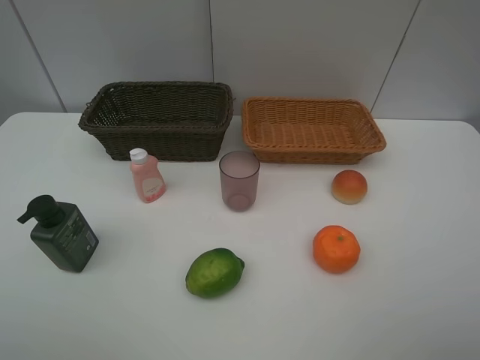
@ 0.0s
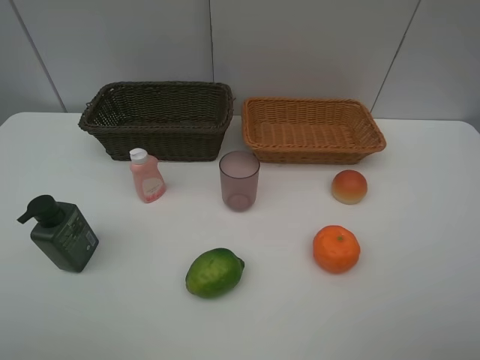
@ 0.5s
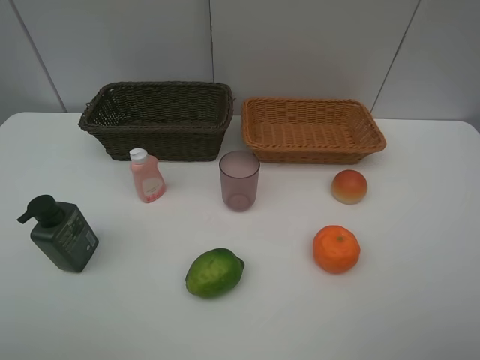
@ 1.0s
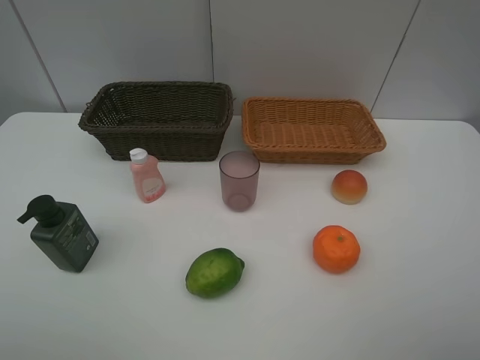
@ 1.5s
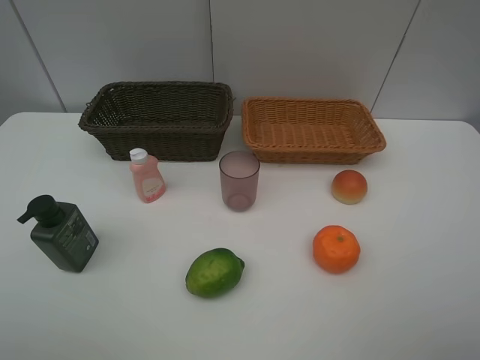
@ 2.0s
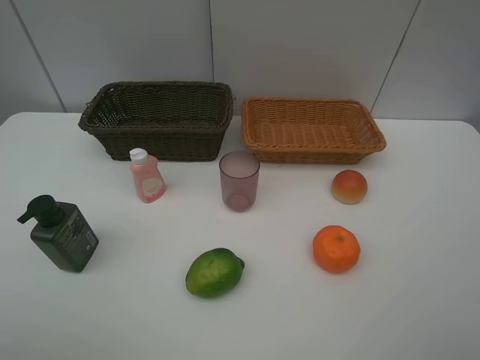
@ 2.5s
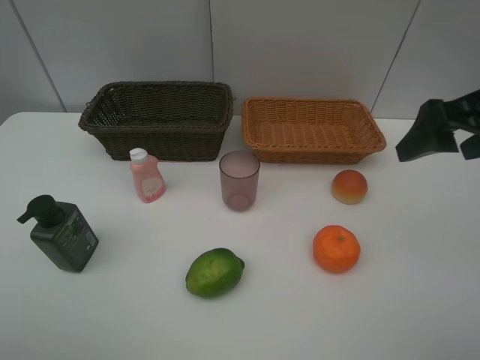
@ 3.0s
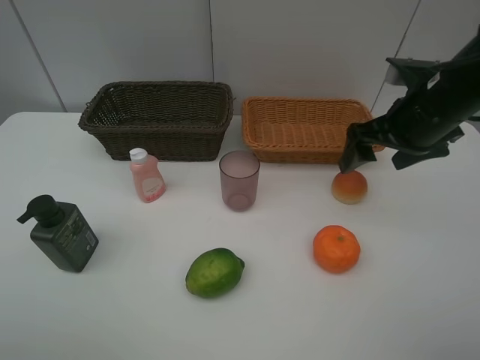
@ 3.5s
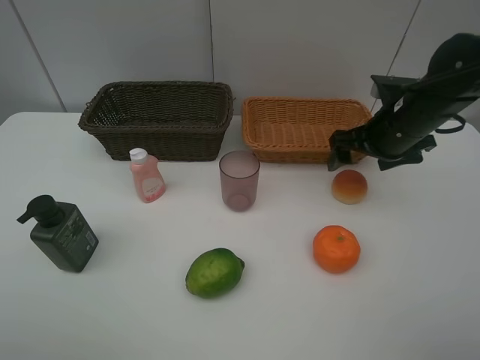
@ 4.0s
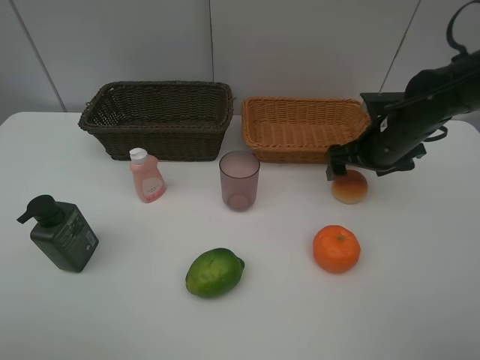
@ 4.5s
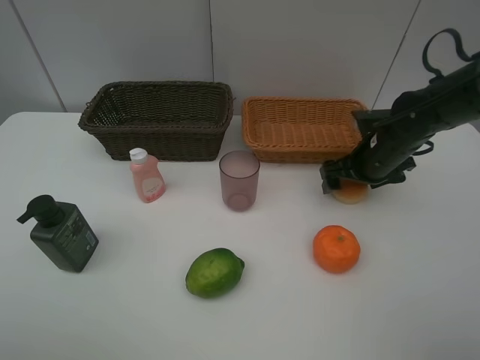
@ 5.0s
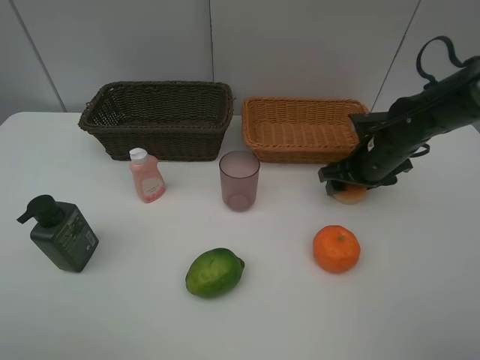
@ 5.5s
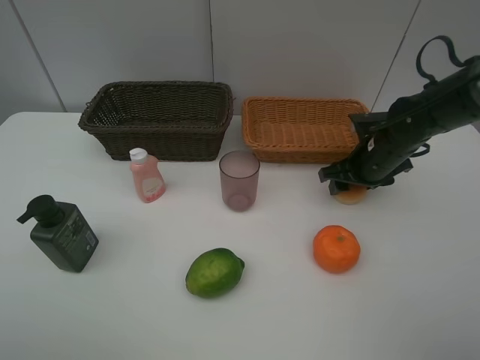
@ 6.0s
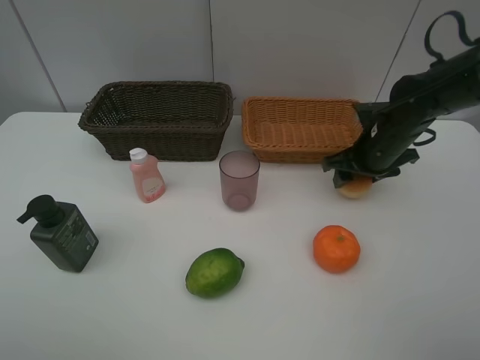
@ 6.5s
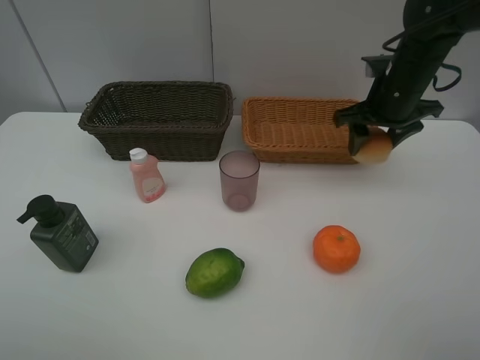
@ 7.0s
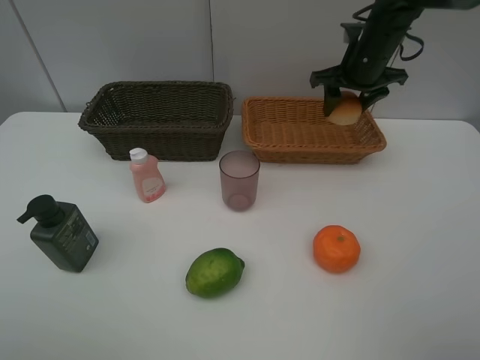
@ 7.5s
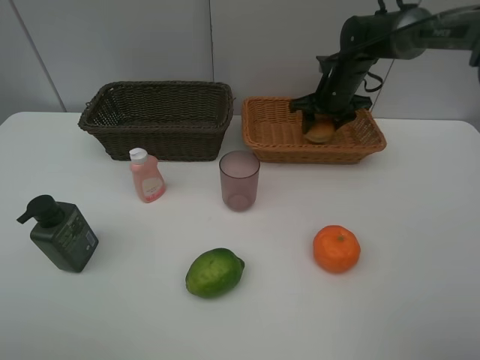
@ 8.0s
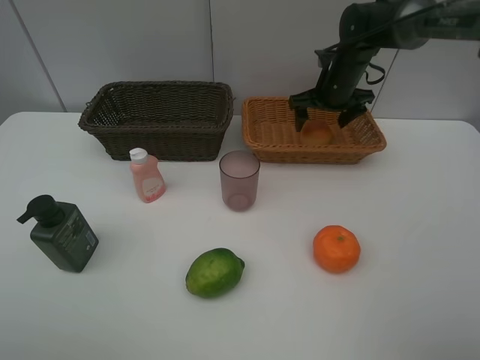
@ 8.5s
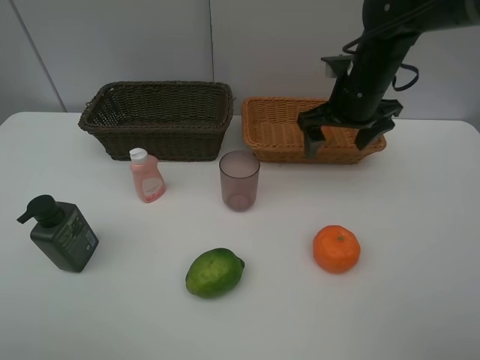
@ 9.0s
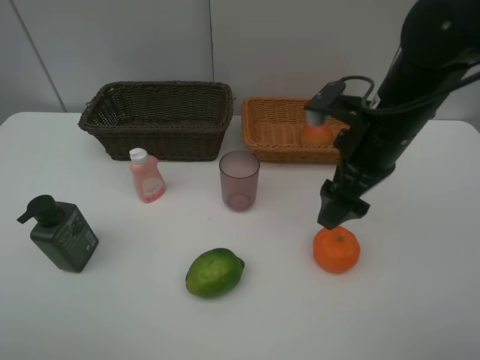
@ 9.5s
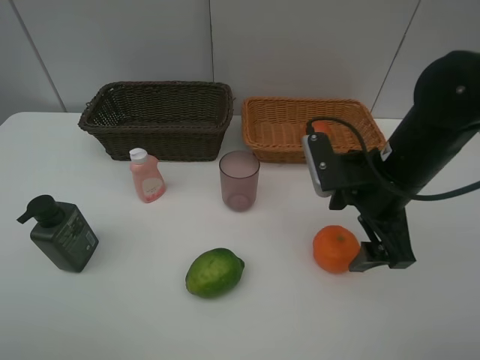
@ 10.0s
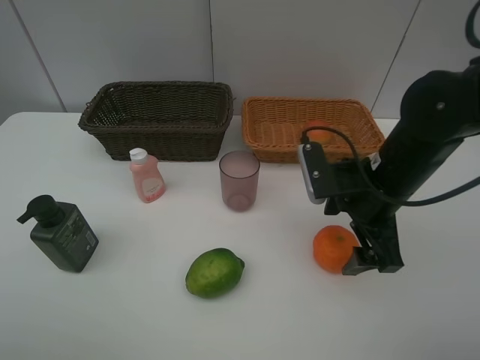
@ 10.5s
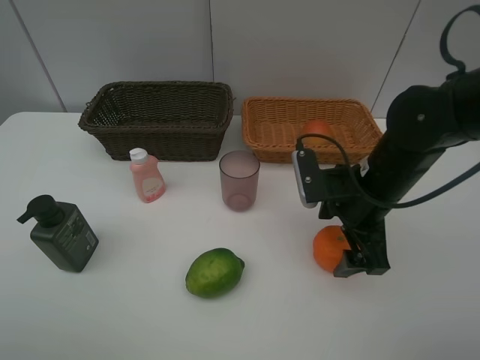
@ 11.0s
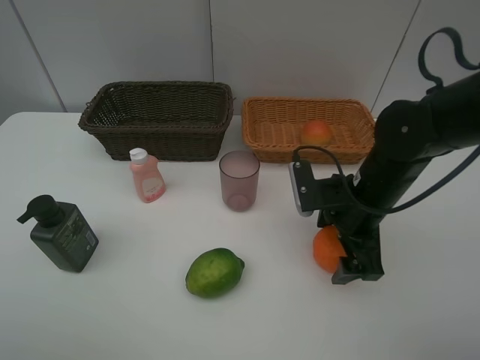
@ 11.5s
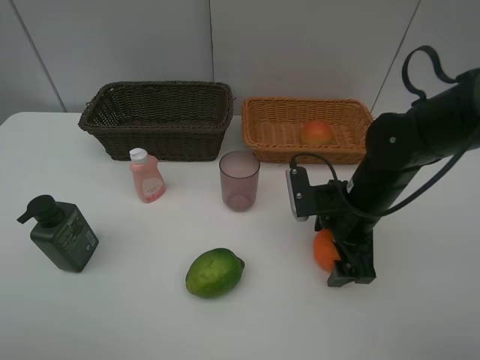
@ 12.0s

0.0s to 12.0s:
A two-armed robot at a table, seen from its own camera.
Task of the whole recording: place multiple objects separately in different baskets.
0.0s to 2.0s: The two grippers keep their place.
2.0s to 4.0s: The right gripper is displaced forward by approximately 35 cm.
4.0s to 6.0s: The right gripper is displaced downward by roughly 5 cm, and closes.
6.0s to 8.0s: The right gripper moves forward, about 15 cm.
8.0s to 10.0s: The right gripper is displaced backward by approximately 25 cm, and opens up.
10.0s to 12.0s: The right gripper travels downward by some 5 cm.

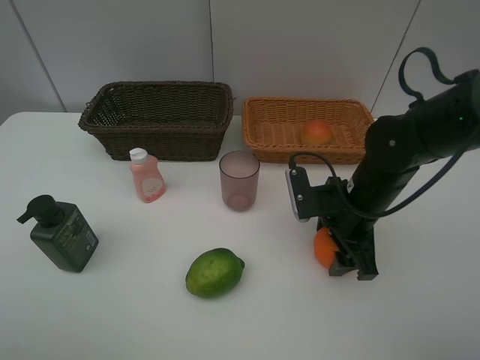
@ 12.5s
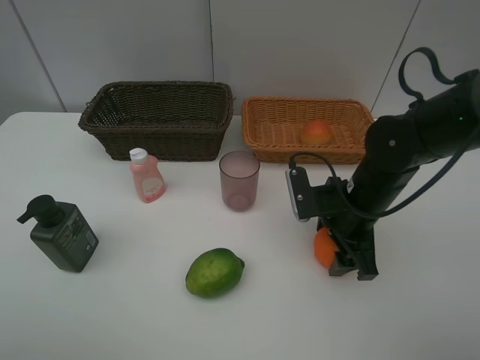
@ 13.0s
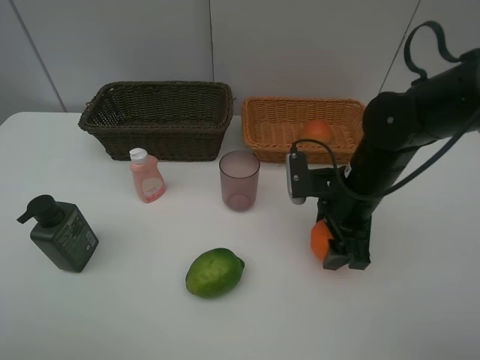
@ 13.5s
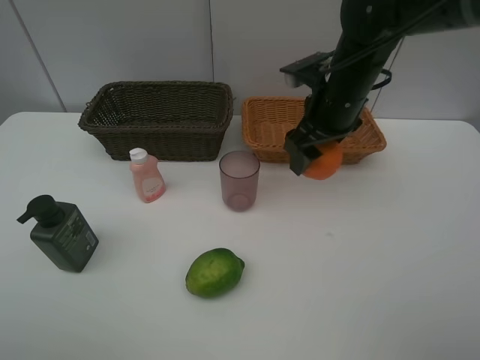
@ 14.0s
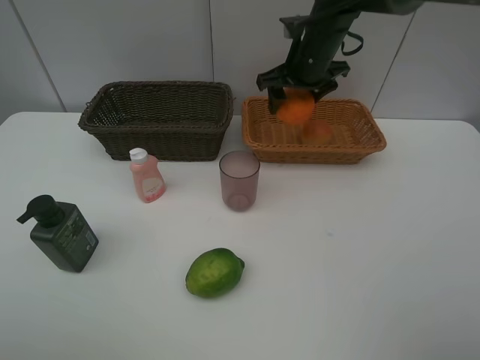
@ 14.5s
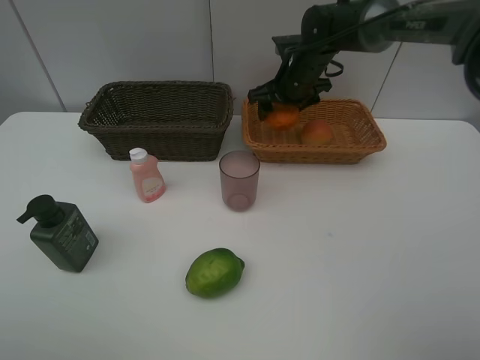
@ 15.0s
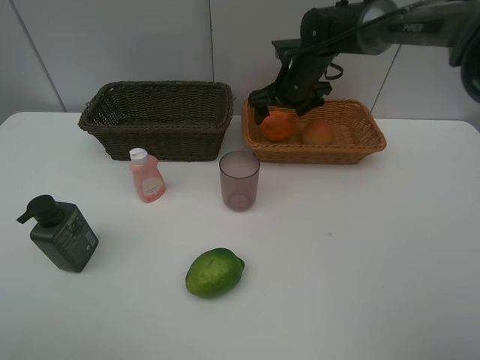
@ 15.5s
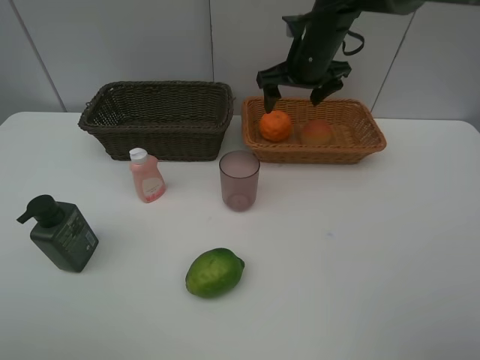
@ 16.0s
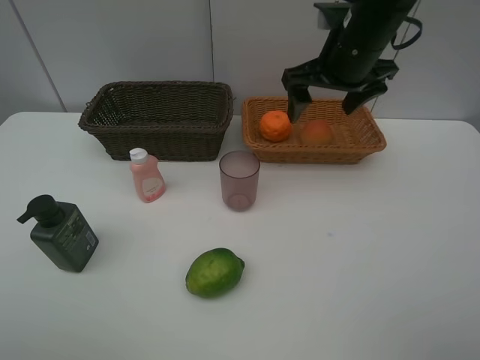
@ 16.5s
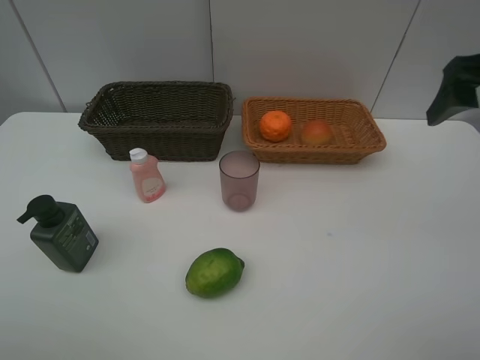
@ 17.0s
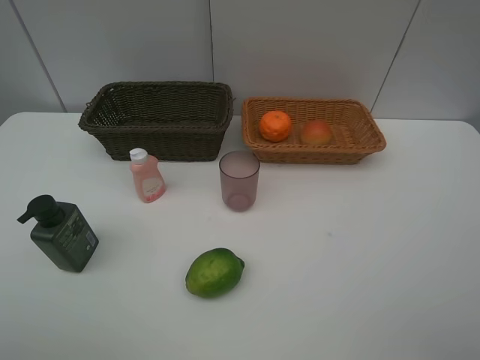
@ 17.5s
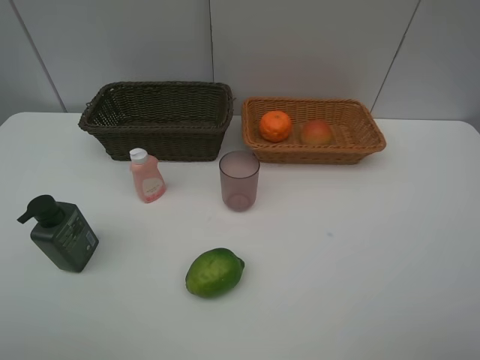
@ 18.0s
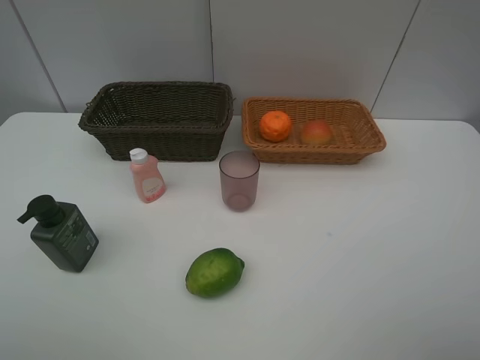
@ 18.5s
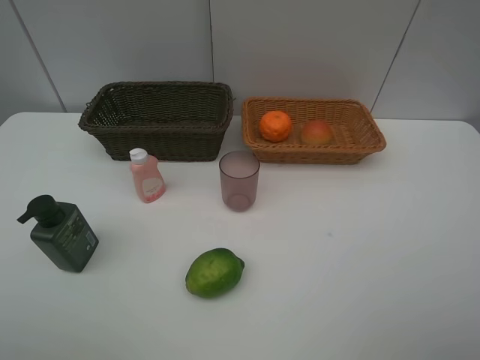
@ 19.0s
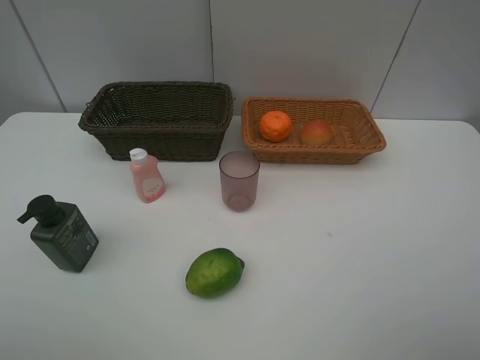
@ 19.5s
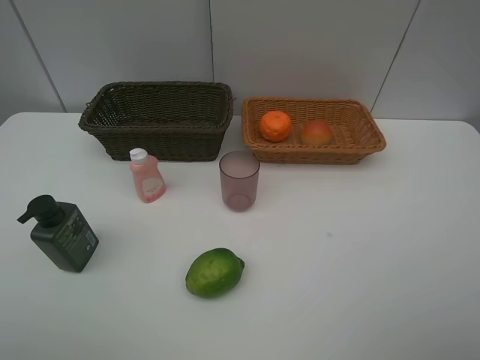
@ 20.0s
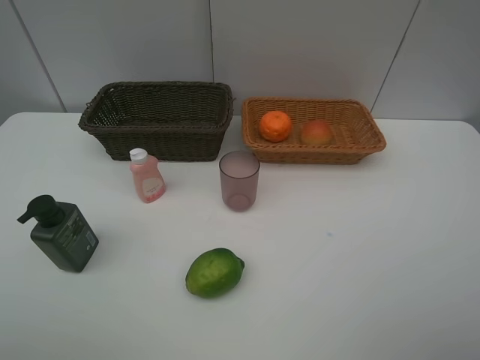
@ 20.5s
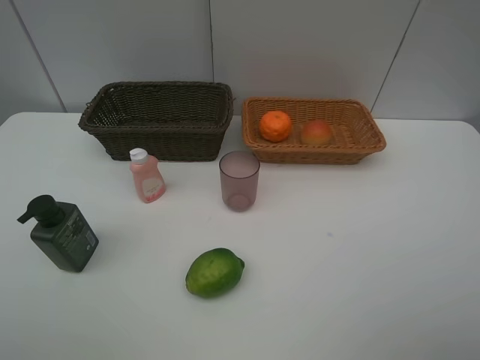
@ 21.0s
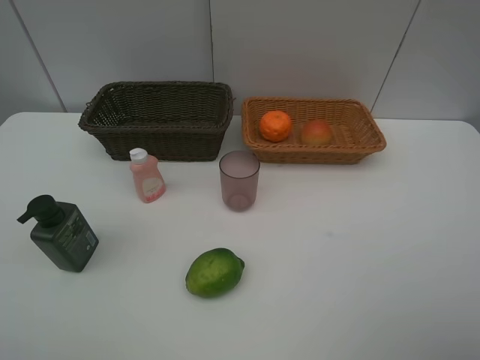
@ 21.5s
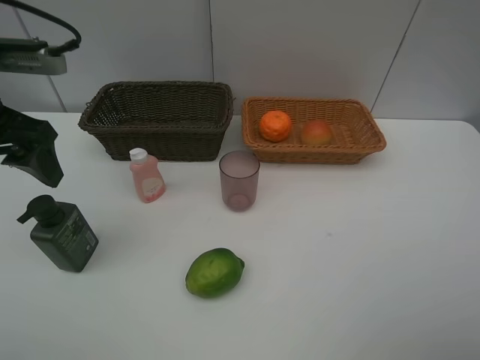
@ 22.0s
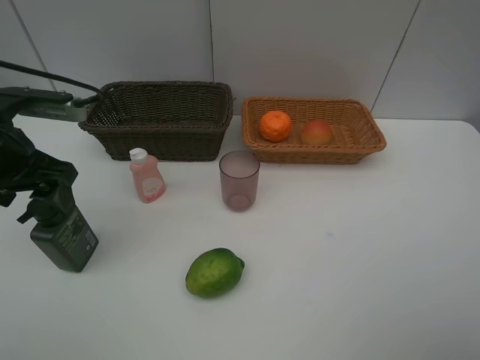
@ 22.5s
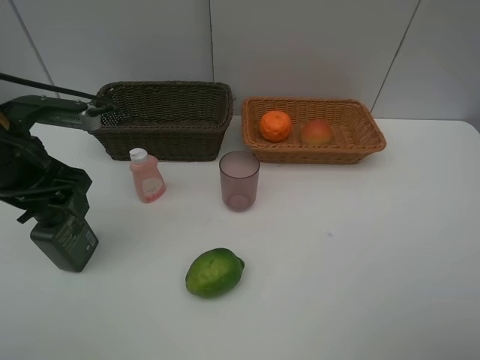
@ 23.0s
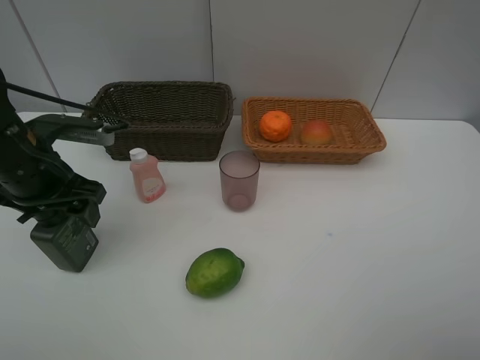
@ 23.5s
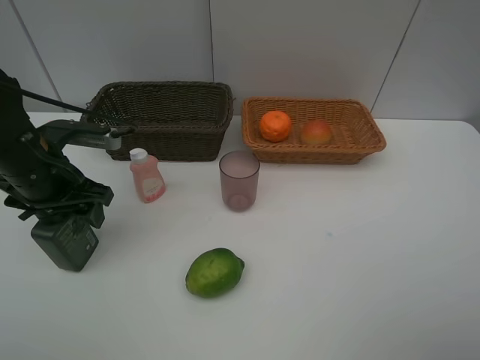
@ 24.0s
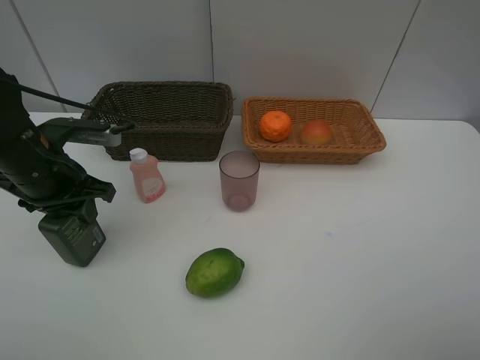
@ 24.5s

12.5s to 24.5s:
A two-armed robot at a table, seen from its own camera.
Task of the whole recording: place multiple objects separately in different baskets.
12.5s to 14.5s: The right gripper is displaced forward and upward by about 25 cm.
14.5s to 16.5s: The right gripper moves backward and upward, about 10 cm, and opens up.
16.5s to 18.5s: The right gripper travels backward by roughly 35 cm.
20.5s to 22.5s: The left gripper moves forward, about 25 cm.
22.5s to 24.5s: The left gripper moves downward, approximately 5 cm, and closes.

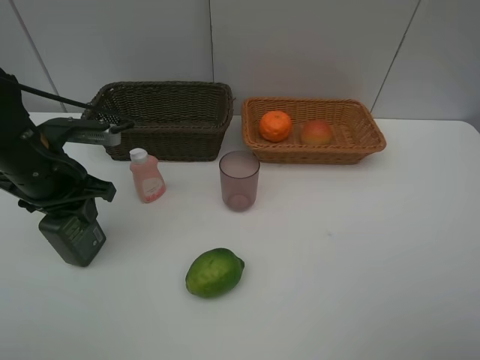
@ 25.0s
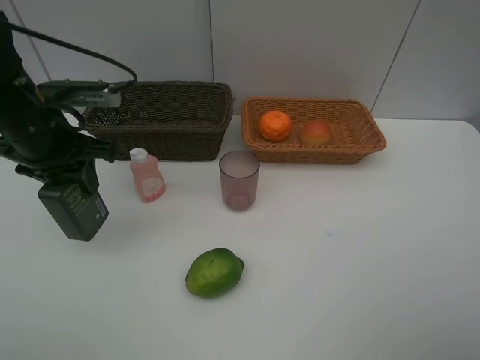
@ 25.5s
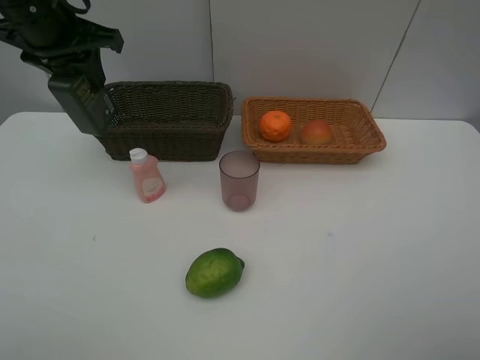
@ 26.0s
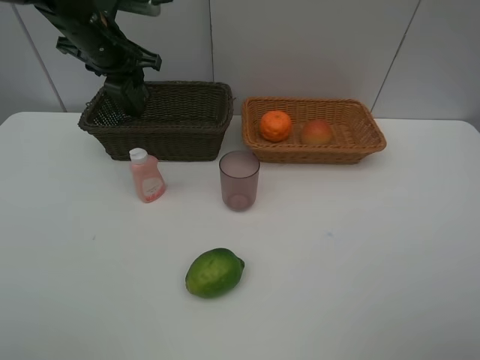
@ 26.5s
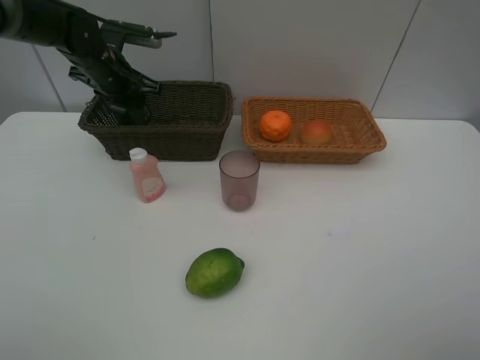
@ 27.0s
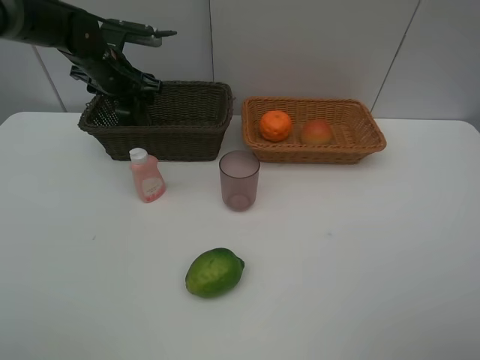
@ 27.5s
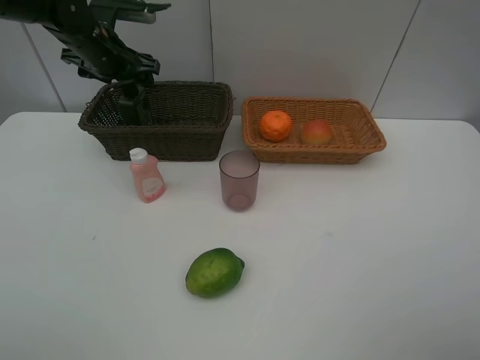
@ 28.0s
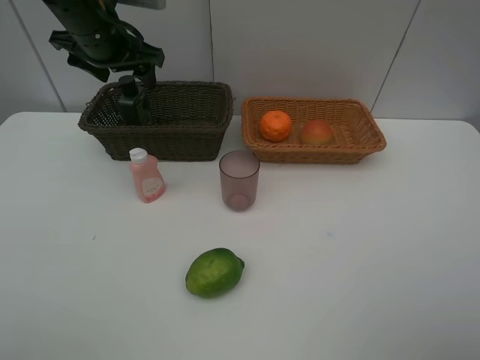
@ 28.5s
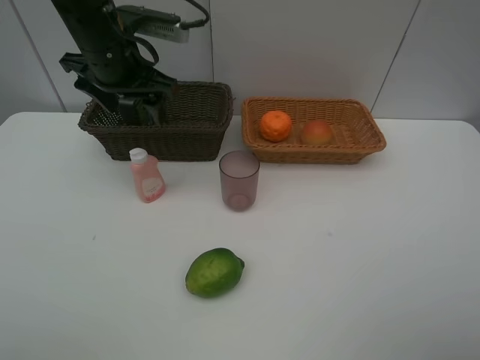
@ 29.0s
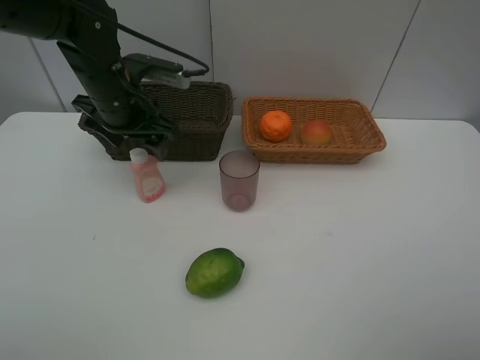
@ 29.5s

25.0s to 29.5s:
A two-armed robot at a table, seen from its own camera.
Task of the whole recording: place multiple objects separately in different baskets.
25.0s to 27.0s: The left gripper moves forward, roughly 20 cm.
27.0s to 29.5s: The left gripper moves backward and to the right, some 10 cm, and opens up.
